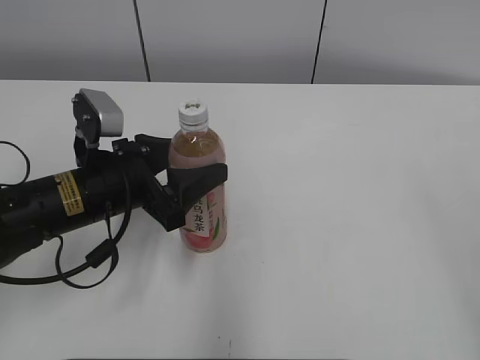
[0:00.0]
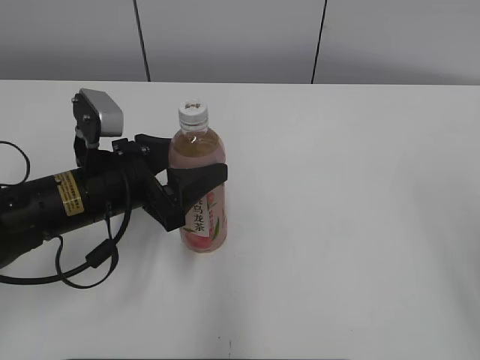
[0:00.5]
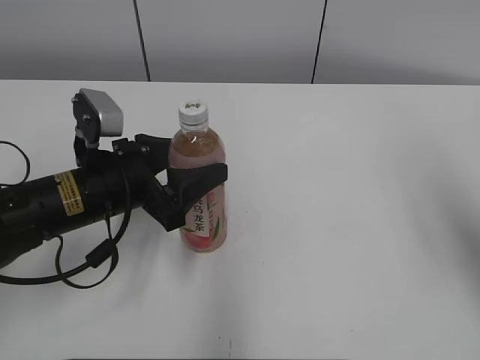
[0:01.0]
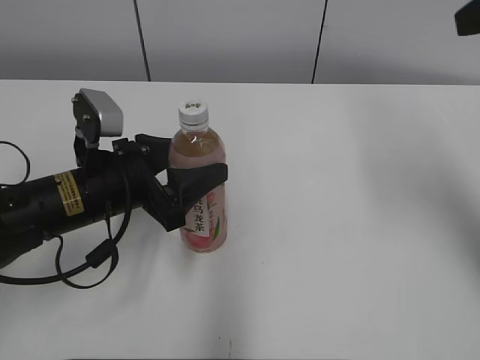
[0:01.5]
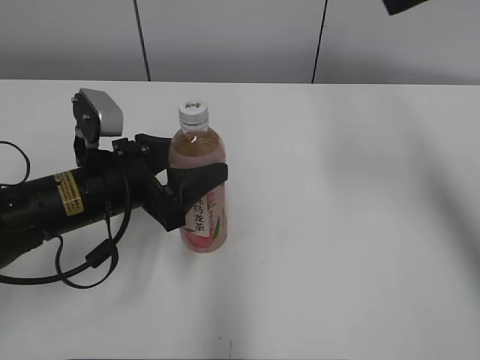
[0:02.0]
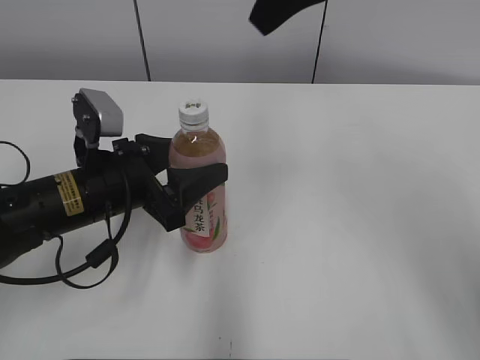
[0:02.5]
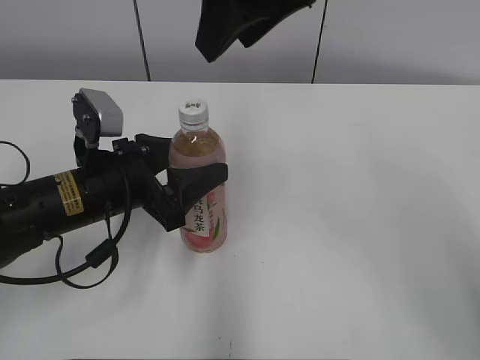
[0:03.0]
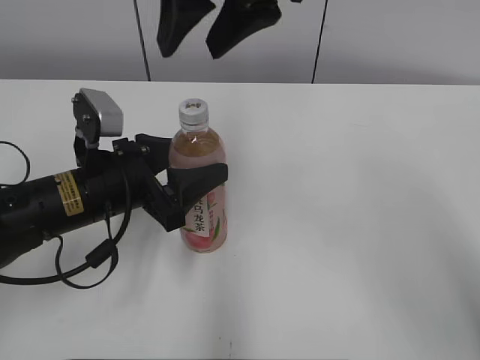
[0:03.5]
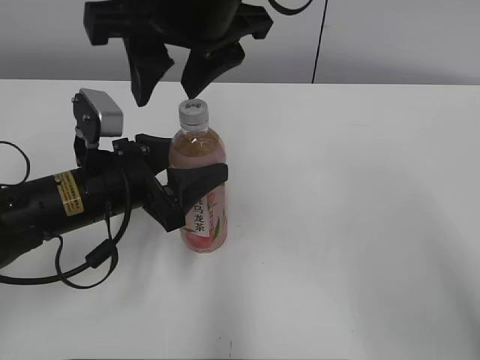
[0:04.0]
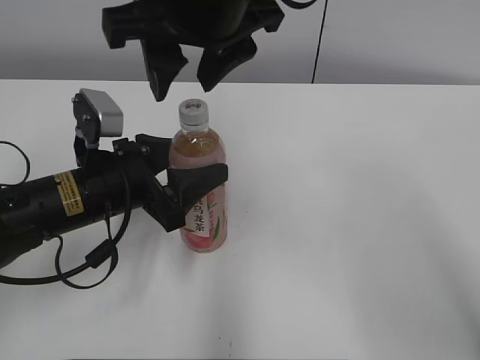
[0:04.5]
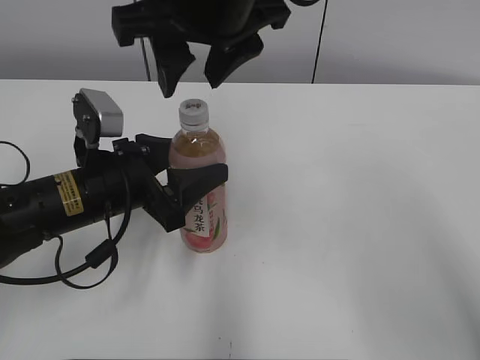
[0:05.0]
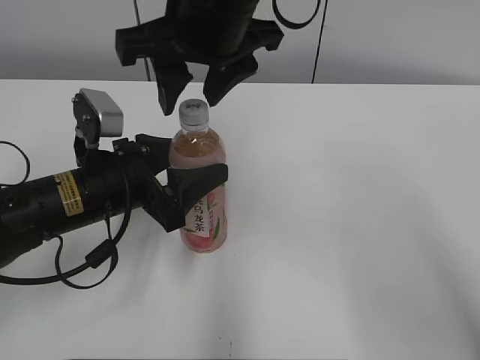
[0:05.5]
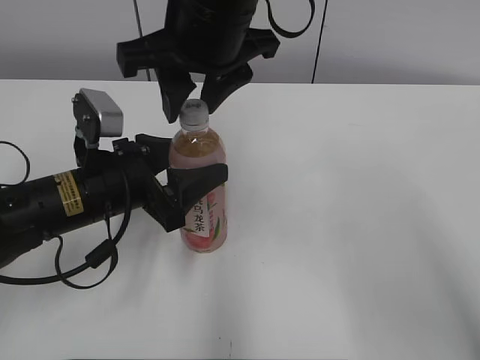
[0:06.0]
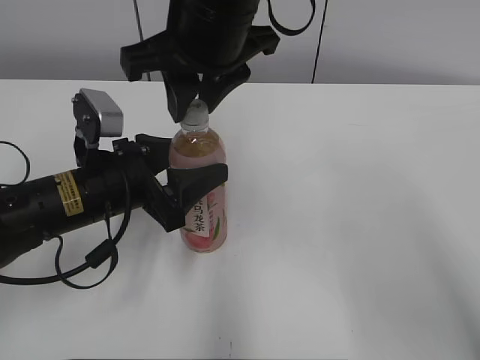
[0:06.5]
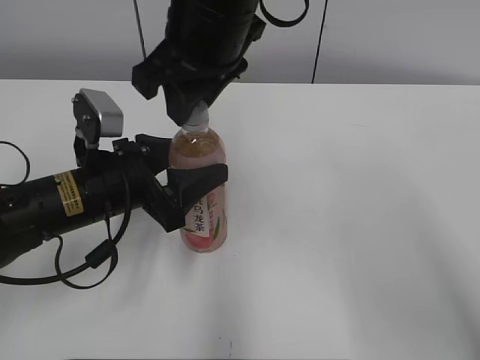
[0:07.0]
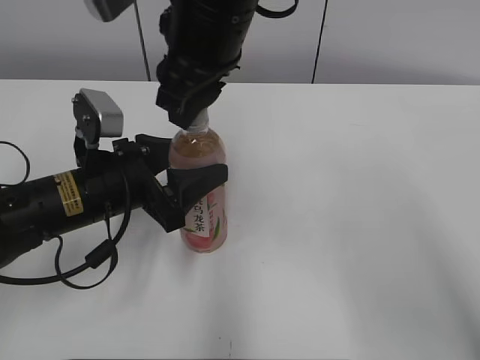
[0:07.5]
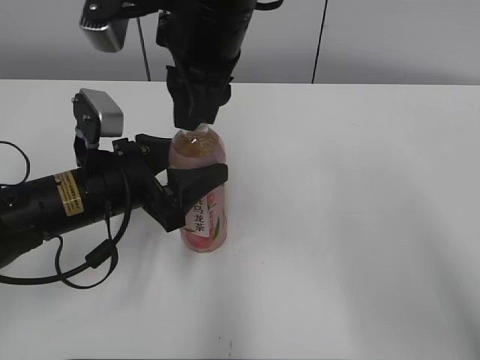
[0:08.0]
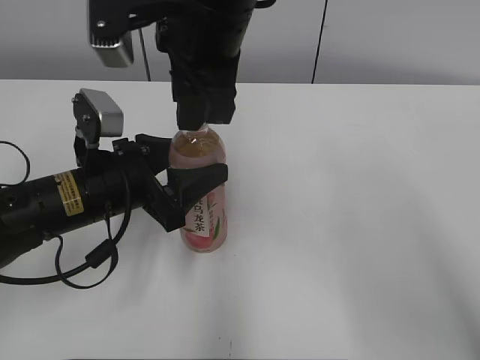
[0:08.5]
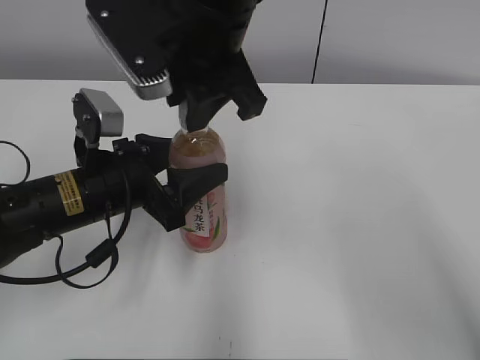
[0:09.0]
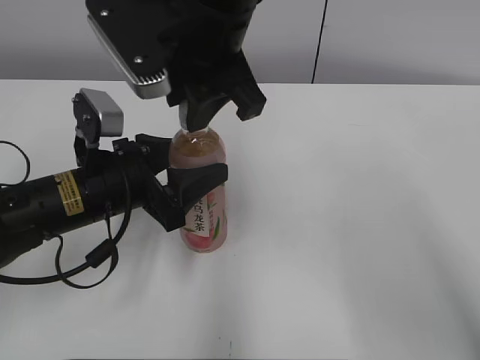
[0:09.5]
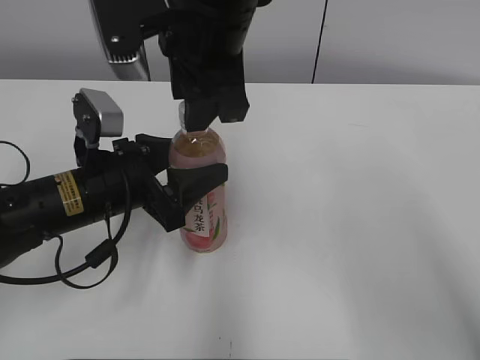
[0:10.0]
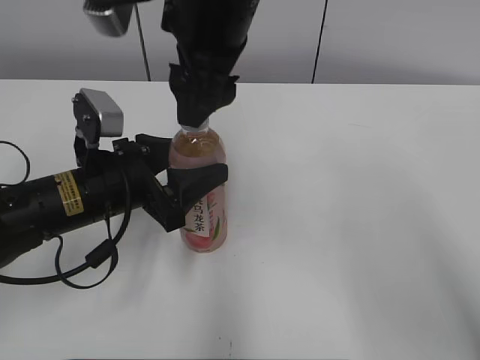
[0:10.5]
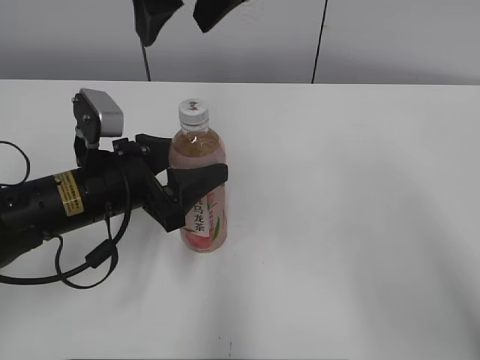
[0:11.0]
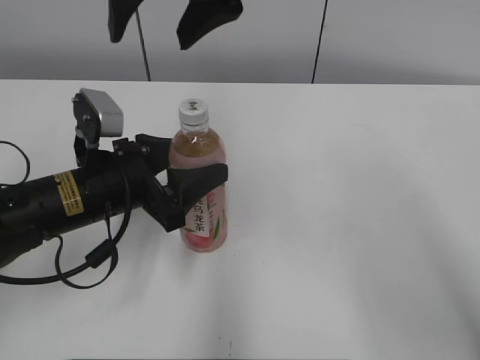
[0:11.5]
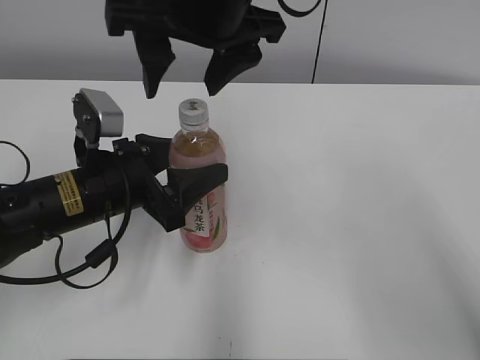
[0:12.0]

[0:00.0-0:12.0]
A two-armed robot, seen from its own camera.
0:00.0 to 0:02.0: The right gripper travels forward by some 30 cm, and closes up.
0:02.0 to 0:04.0: The right gripper is displaced to the left by some 25 cm.
0:04.0 to 0:06.0: The grippers make only small movements.
0:10.0 to 0:12.0: The right gripper opens up.

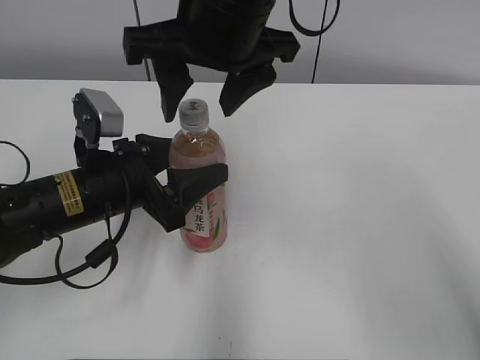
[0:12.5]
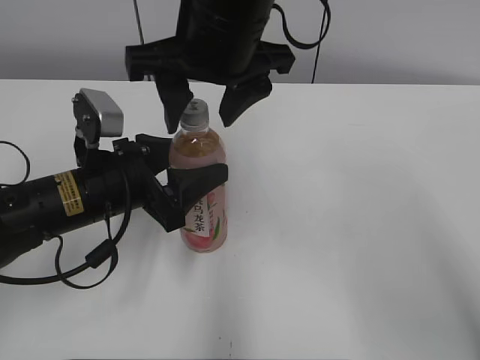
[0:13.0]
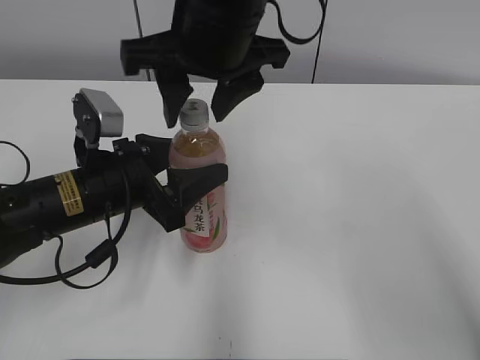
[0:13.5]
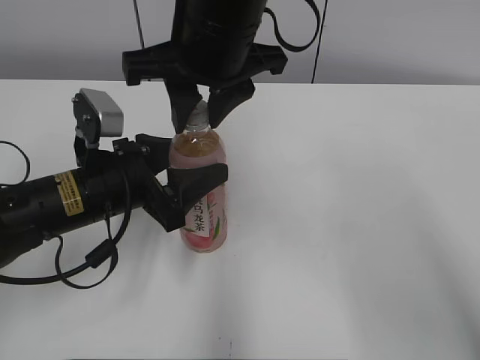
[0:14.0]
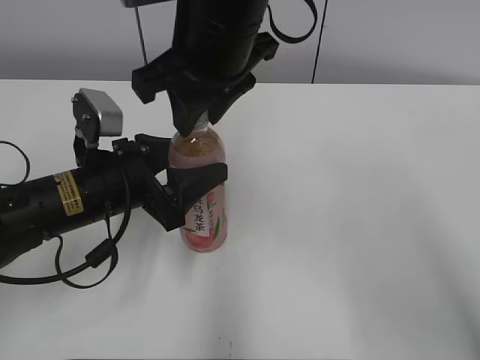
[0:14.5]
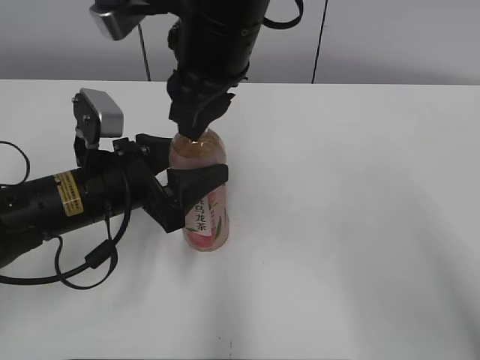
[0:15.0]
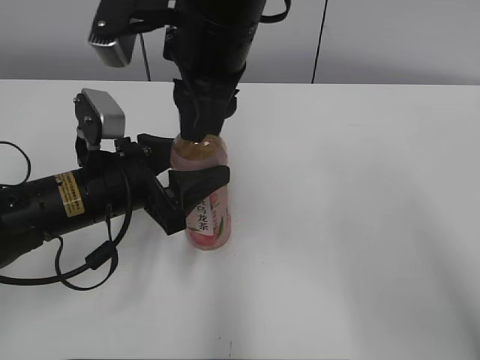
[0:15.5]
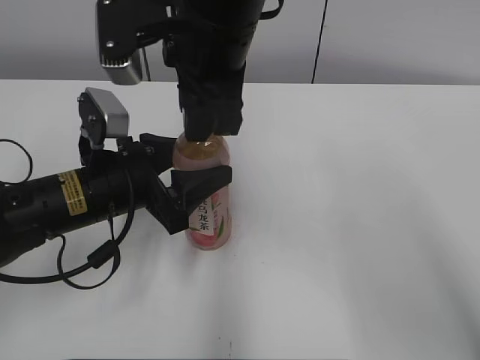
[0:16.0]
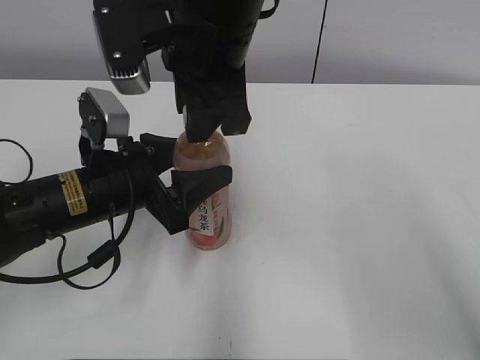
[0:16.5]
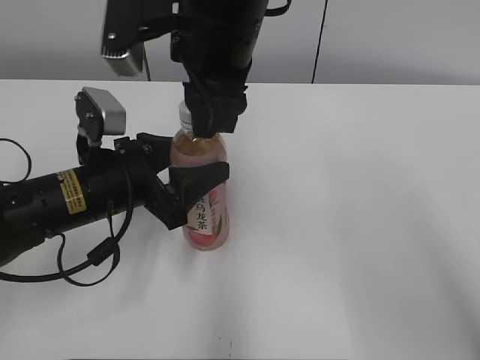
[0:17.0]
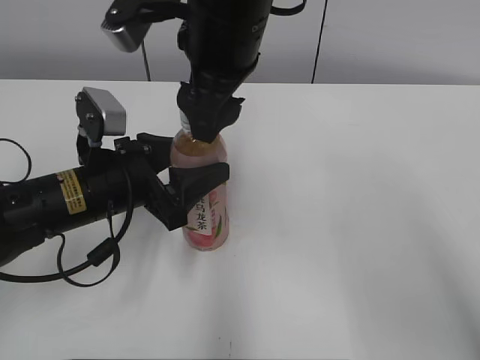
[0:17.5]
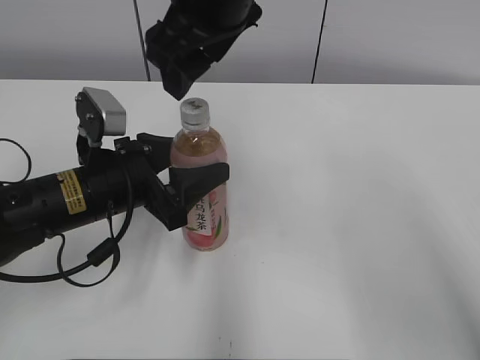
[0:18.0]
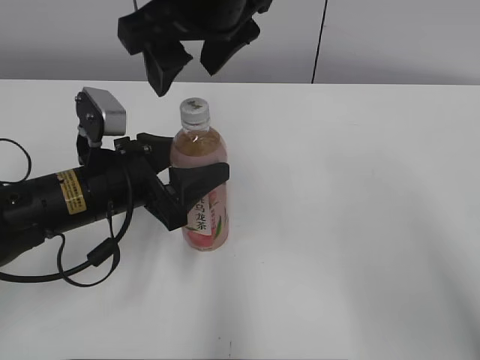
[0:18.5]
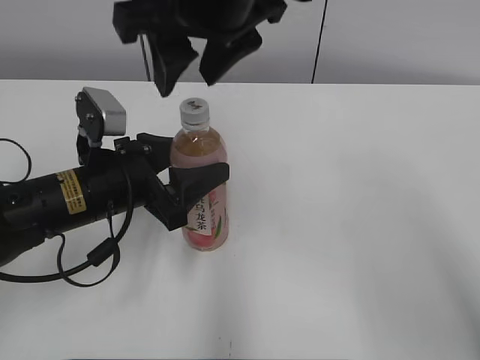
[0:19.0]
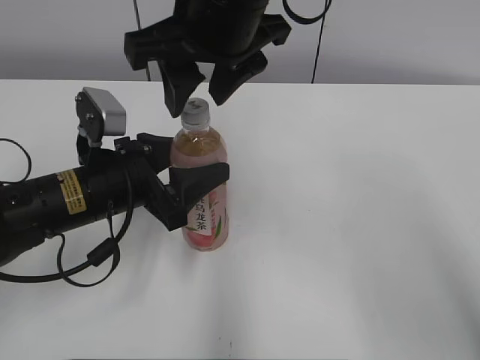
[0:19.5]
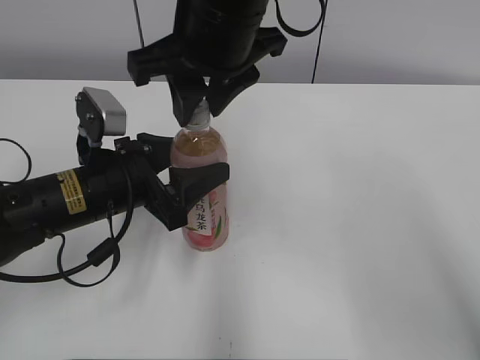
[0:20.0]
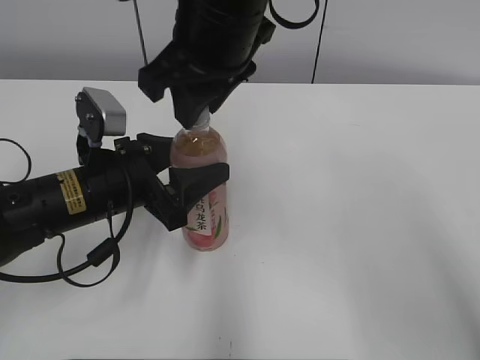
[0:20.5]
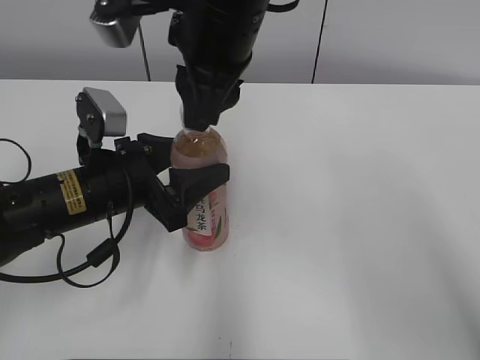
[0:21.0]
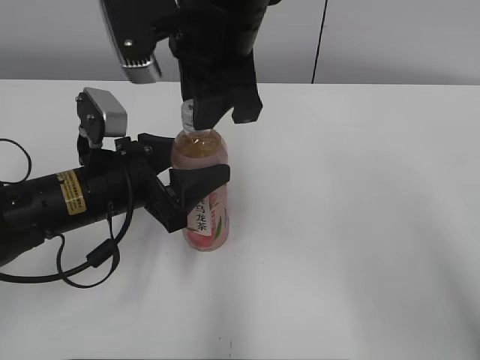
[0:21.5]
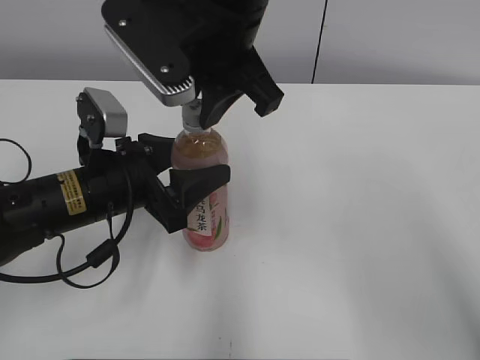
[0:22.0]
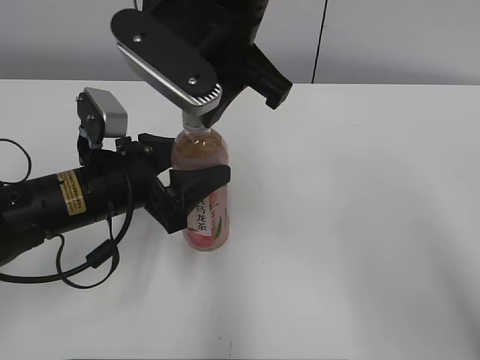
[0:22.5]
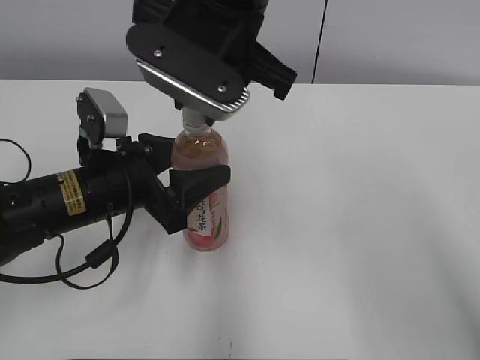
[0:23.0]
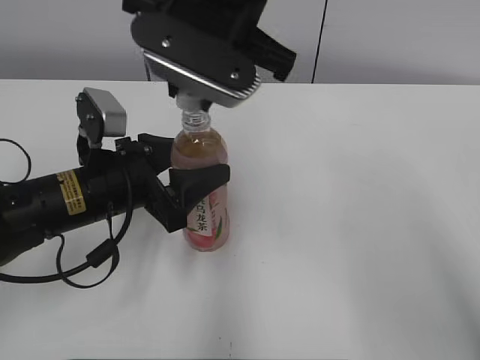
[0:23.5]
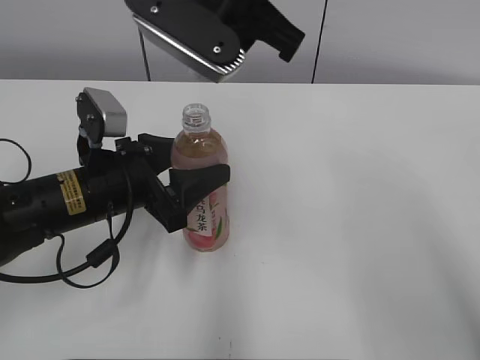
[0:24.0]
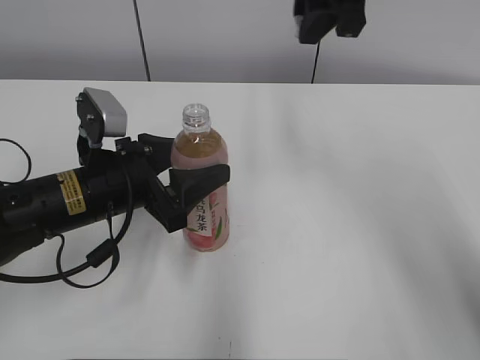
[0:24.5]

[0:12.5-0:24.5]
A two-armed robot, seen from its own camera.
0:12.5 to 0:14.5: The right gripper closes up.
0:16.5 to 0:18.5: The right gripper opens up.
0:18.5 to 0:20.5: The right gripper closes.
0:22.5 to 0:24.5: The right gripper goes approximately 10 cm to the right and forward.

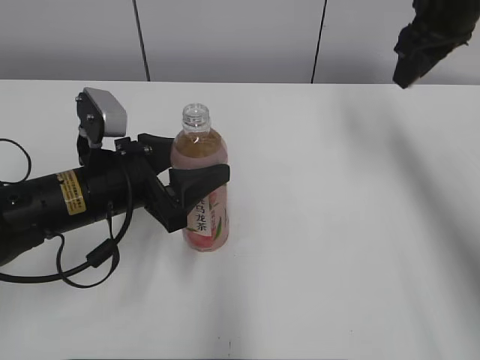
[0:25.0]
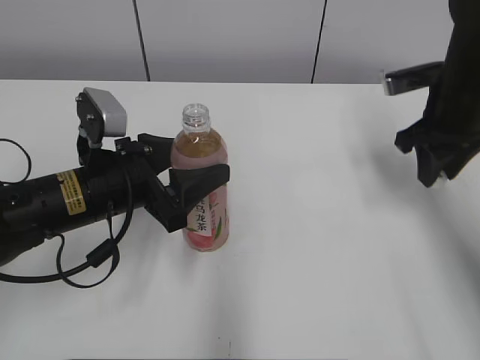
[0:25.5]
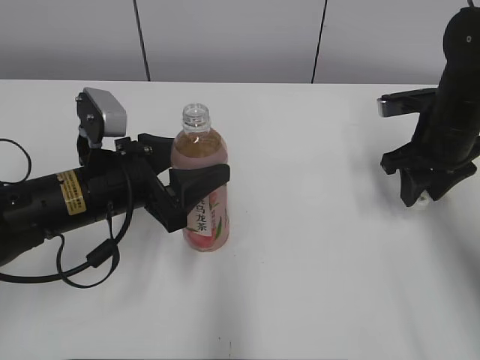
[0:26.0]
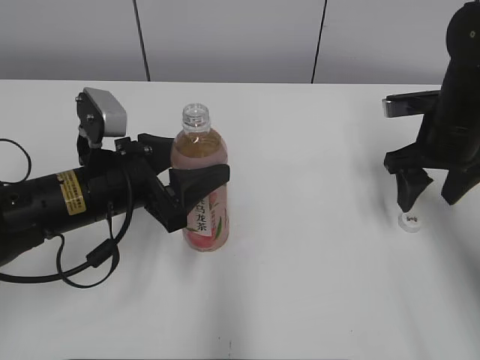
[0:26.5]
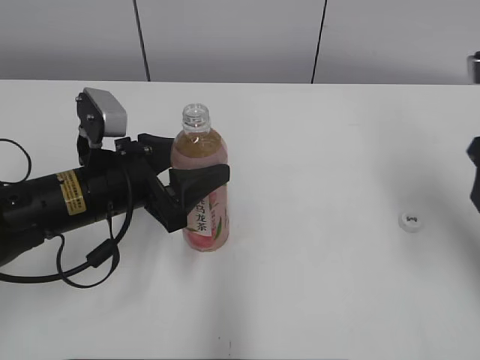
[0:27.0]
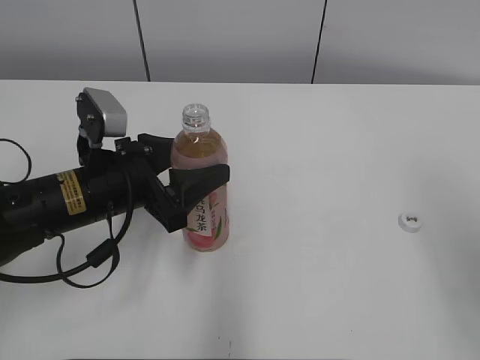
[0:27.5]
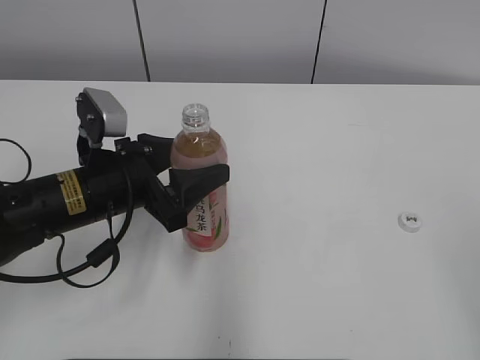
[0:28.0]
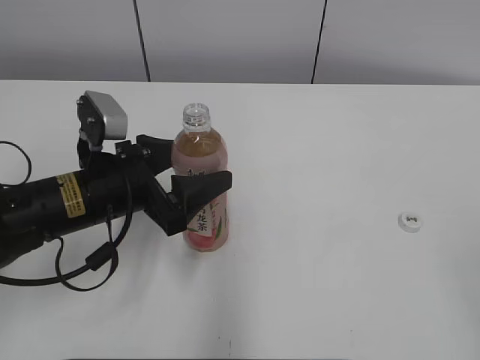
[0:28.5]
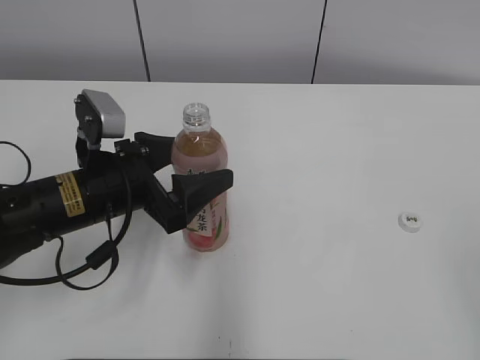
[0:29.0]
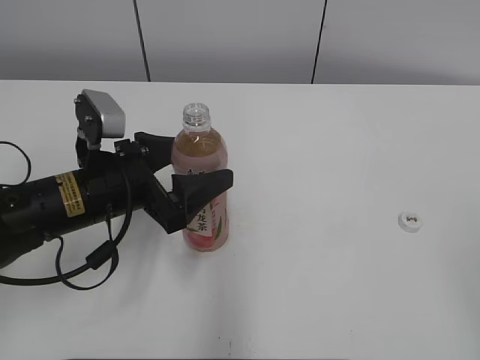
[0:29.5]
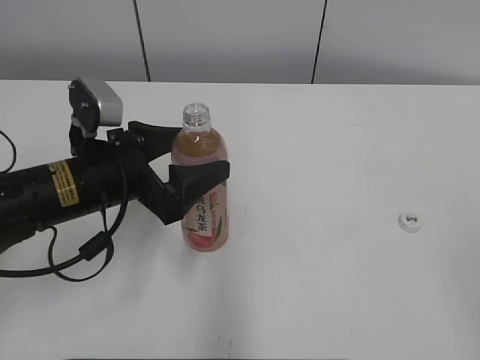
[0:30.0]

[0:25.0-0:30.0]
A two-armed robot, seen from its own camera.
0:25.0 to 0:27.5: The right gripper heads backward, covering about 30 cm, and opens up.
0:27.5 to 0:30.0: The right gripper goes about 10 cm backward. Meanwhile the left gripper opens.
